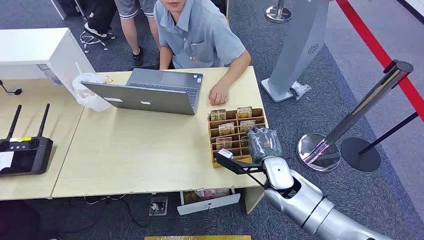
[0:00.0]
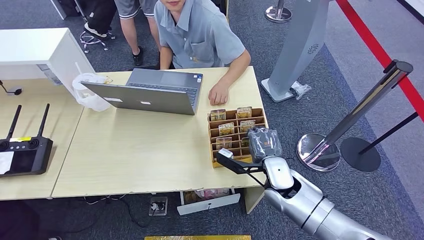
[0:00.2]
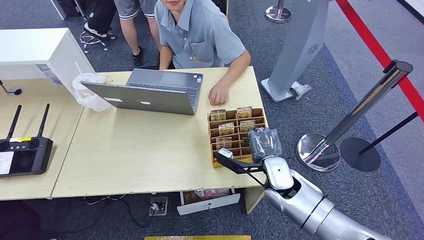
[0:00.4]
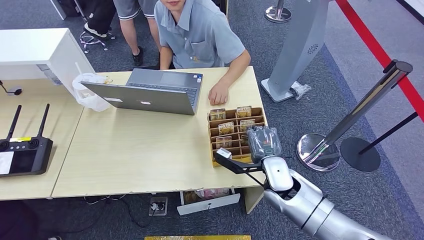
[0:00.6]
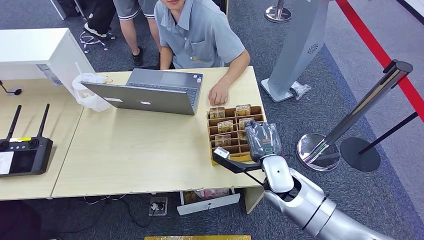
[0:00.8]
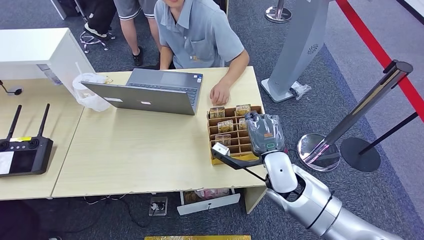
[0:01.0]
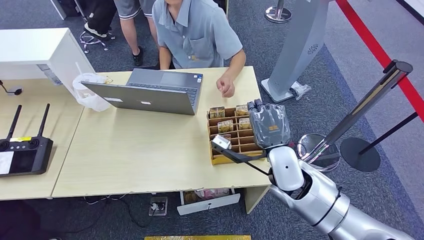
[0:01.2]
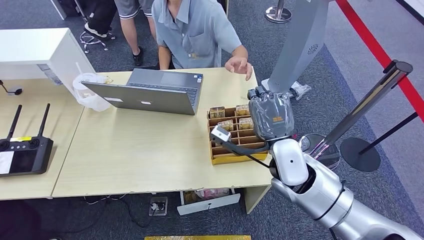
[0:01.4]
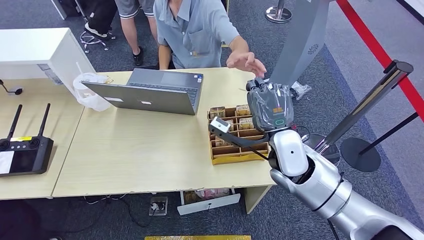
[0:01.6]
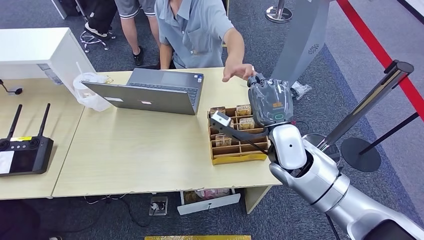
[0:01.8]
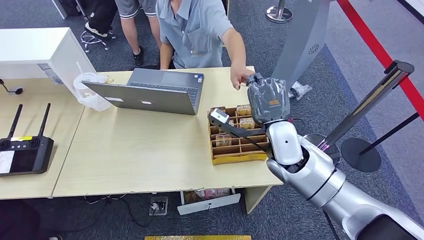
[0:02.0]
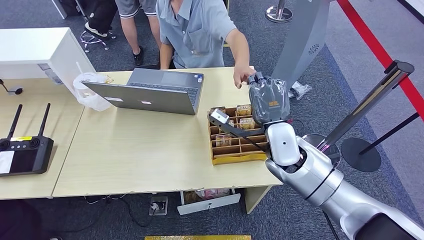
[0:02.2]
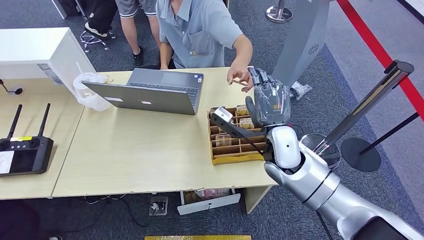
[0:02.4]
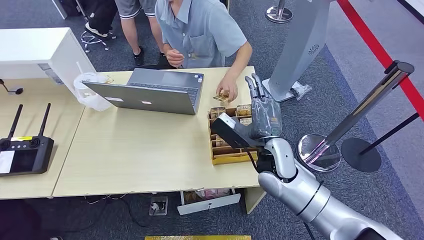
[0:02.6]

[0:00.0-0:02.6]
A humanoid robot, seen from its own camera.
Step, 0:00.0 to 0:01.0: Pick up the room card from the card holder.
Step, 0:01.6 to 0:02.4: Hand the room card to the target.
